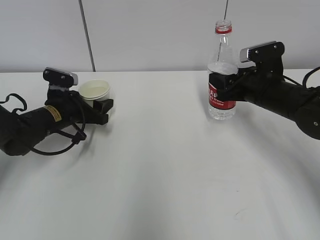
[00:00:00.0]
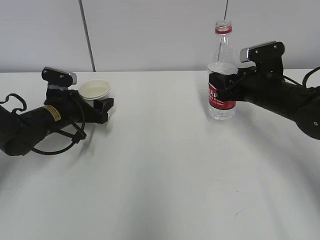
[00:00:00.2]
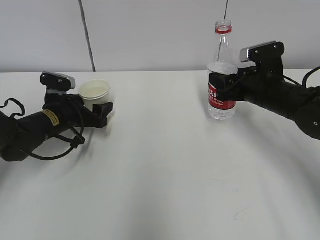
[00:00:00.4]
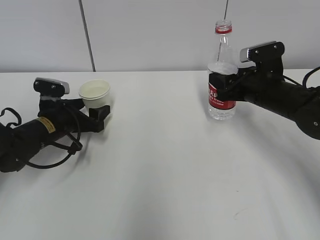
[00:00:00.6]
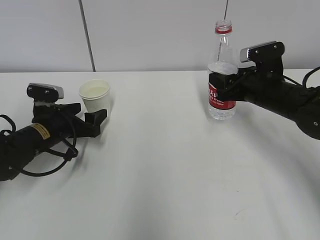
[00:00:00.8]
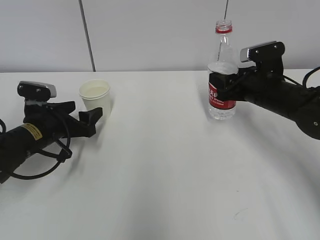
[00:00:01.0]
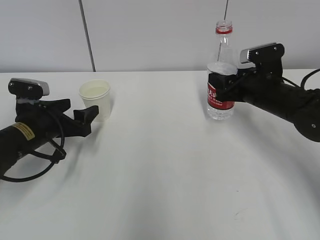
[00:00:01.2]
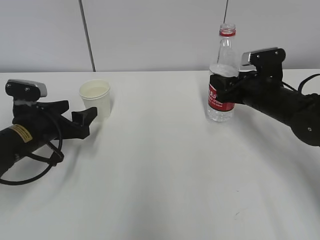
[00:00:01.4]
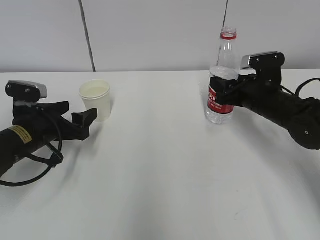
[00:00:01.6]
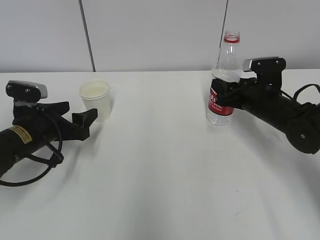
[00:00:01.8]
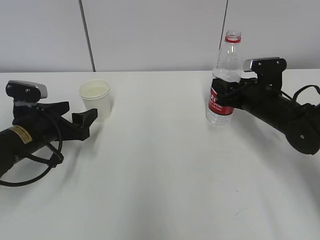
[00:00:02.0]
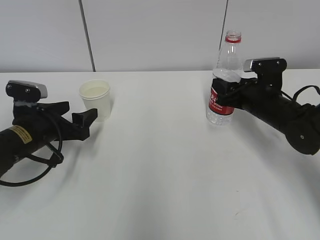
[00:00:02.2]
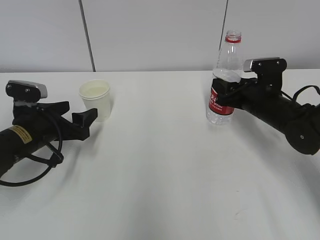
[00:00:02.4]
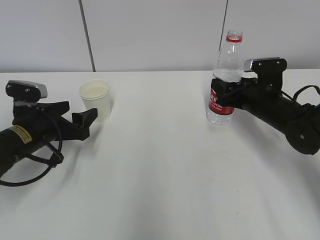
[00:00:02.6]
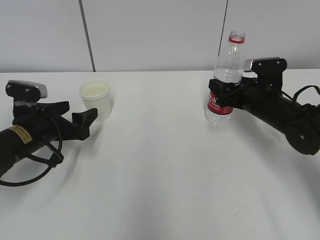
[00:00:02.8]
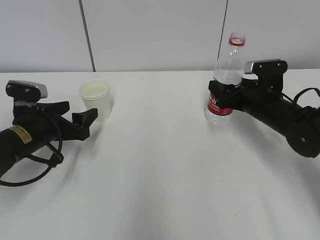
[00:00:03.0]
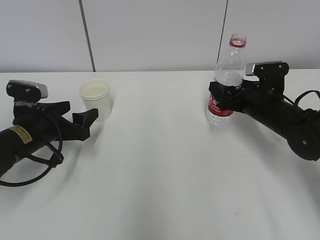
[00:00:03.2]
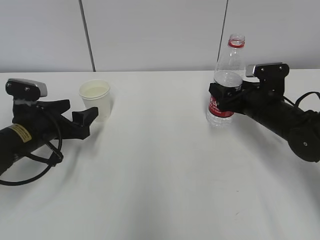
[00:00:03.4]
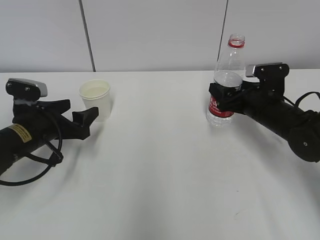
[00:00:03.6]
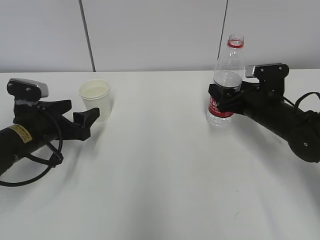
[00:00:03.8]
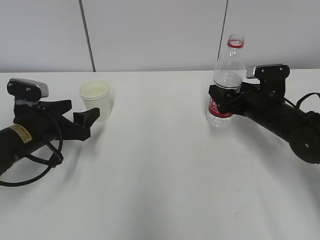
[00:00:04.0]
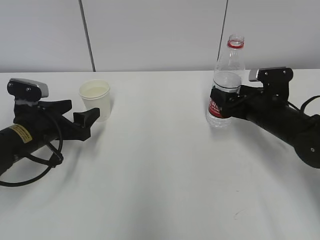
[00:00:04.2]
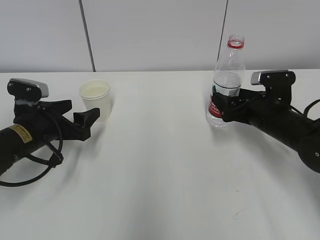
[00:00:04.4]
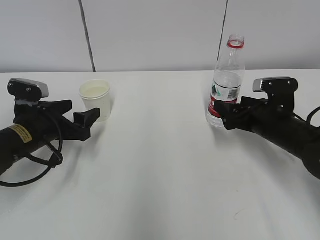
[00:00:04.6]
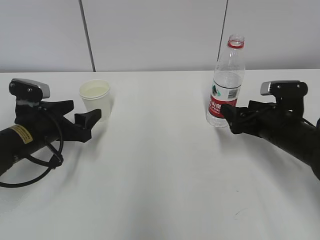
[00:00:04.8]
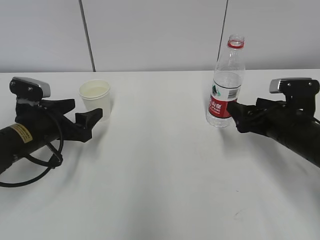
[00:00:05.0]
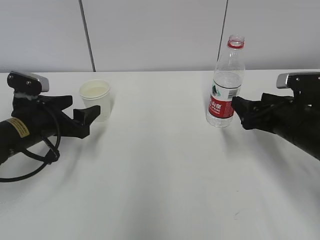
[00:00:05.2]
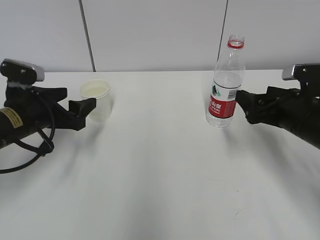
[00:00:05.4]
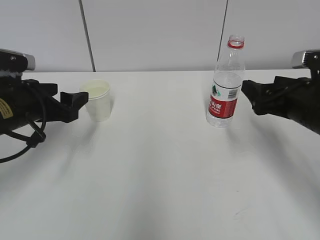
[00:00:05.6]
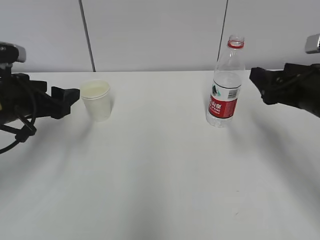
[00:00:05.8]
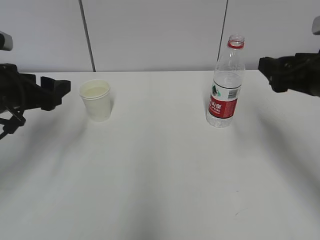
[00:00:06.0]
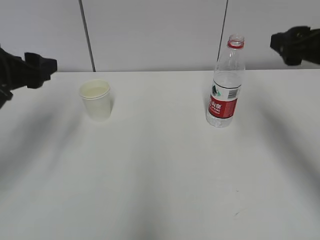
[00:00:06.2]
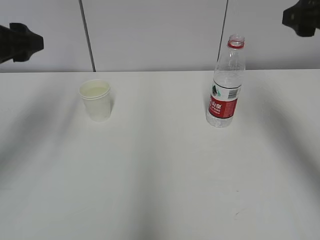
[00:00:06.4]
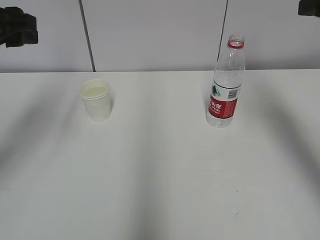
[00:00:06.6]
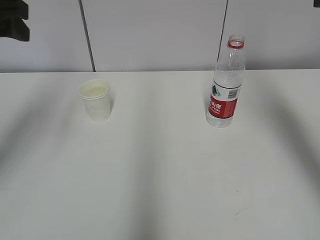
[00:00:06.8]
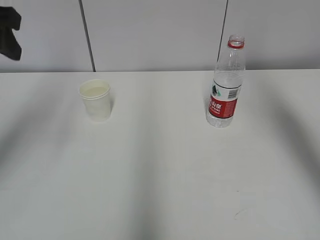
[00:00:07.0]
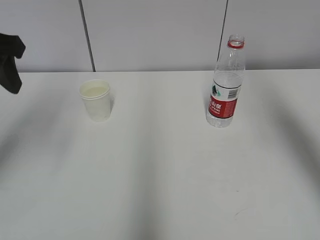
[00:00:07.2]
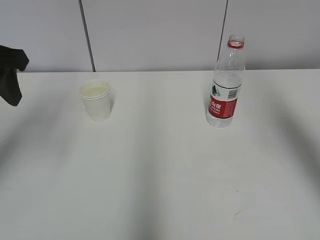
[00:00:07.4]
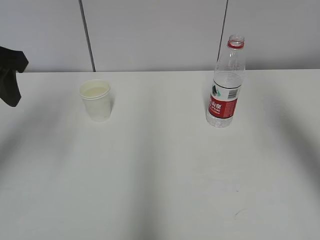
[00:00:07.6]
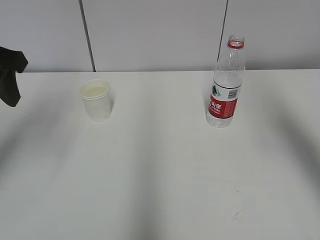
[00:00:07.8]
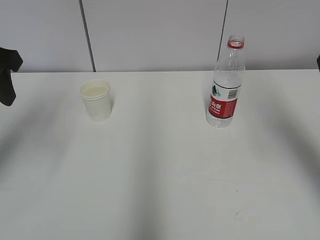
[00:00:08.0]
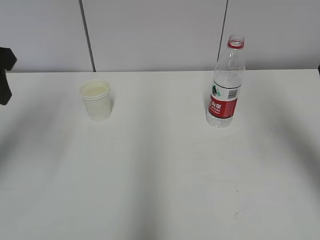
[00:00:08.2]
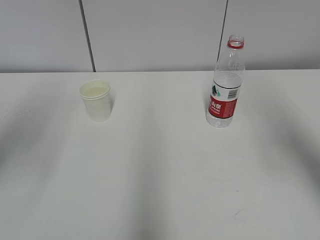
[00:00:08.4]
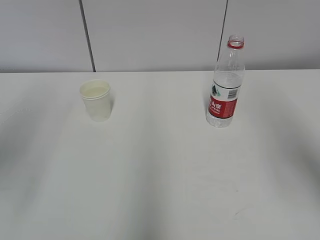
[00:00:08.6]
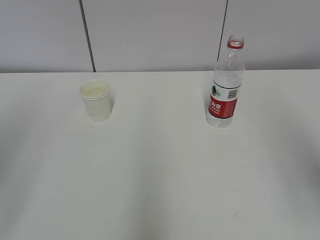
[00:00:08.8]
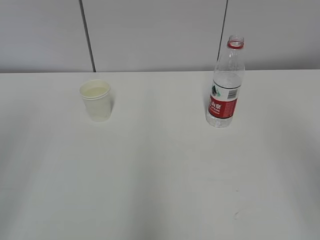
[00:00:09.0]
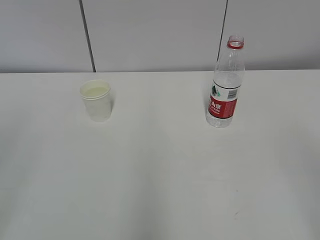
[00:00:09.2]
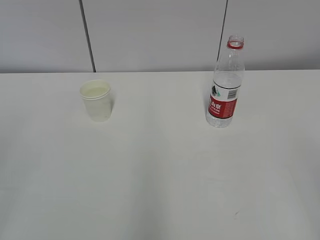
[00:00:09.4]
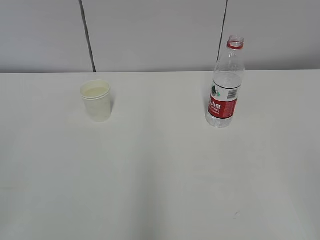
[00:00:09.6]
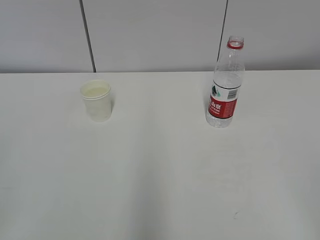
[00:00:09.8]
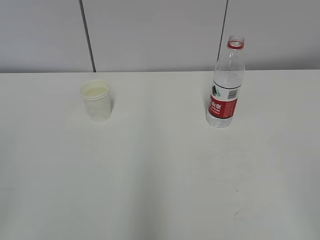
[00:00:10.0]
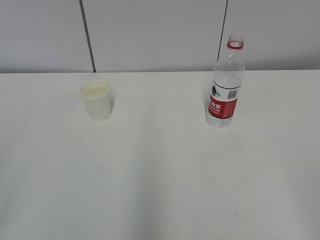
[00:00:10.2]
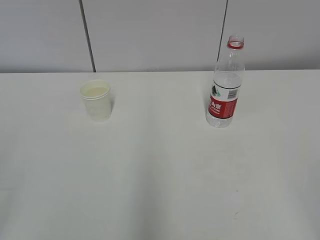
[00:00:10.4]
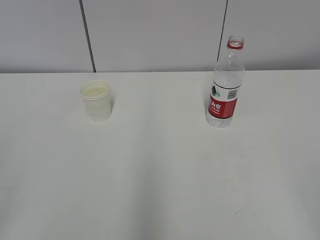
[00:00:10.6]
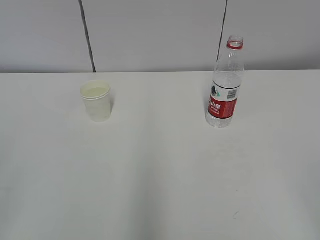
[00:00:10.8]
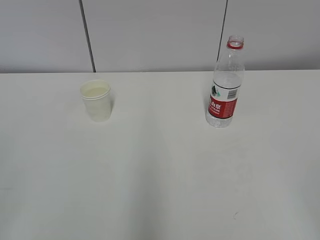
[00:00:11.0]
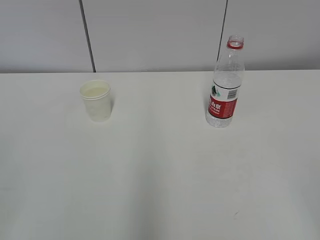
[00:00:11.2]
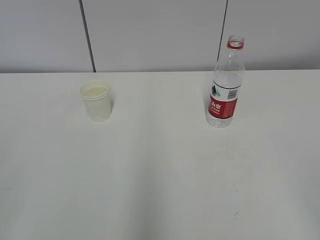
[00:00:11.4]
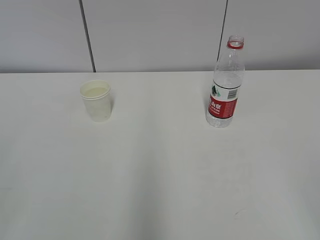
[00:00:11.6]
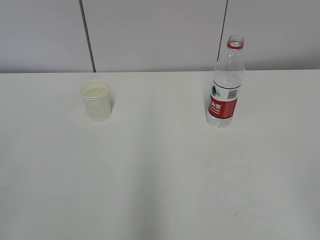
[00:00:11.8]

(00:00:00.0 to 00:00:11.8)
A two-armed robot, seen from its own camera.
00:00:00.0 - 00:00:01.4: The left gripper travels backward by approximately 10 cm.
00:00:01.4 - 00:00:03.0: The right gripper opens its fingers.
00:00:03.0 - 00:00:04.4: There are only small adjustments of the grippers.
00:00:04.4 - 00:00:06.0: The right gripper goes some 15 cm upward and backward. The left gripper shifts some 10 cm upward.
00:00:06.0 - 00:00:07.4: Both grippers travel together upward, approximately 15 cm.
00:00:07.4 - 00:00:08.8: Both grippers travel together backward, about 15 cm.
00:00:08.8 - 00:00:10.4: The right gripper heads backward and downward, covering roughly 15 cm.
